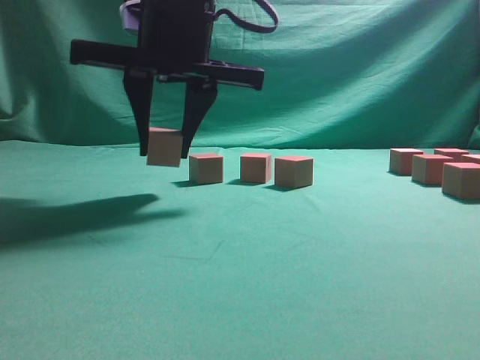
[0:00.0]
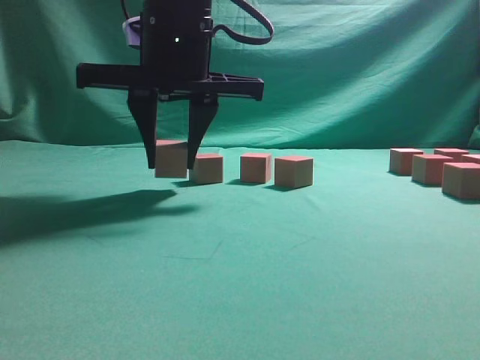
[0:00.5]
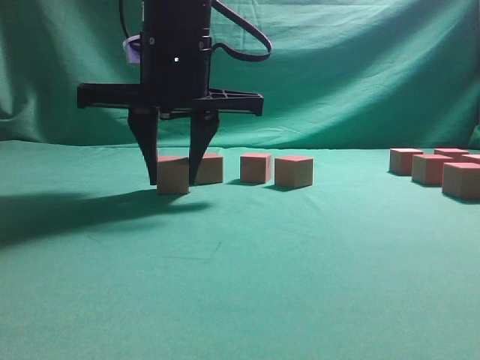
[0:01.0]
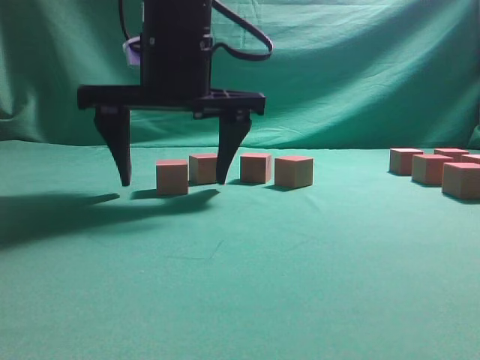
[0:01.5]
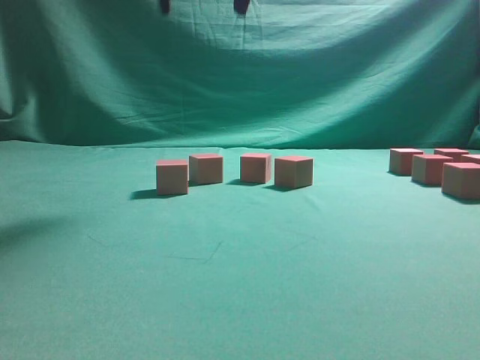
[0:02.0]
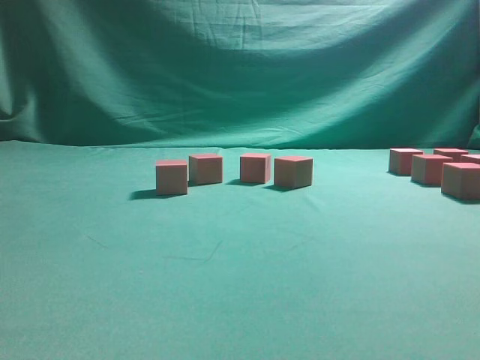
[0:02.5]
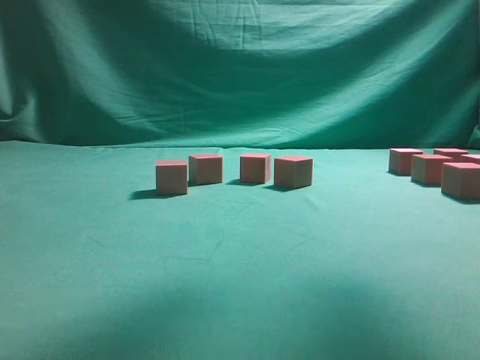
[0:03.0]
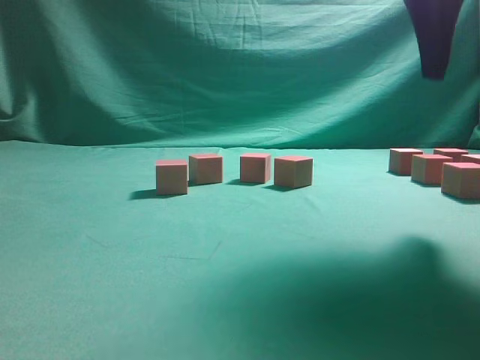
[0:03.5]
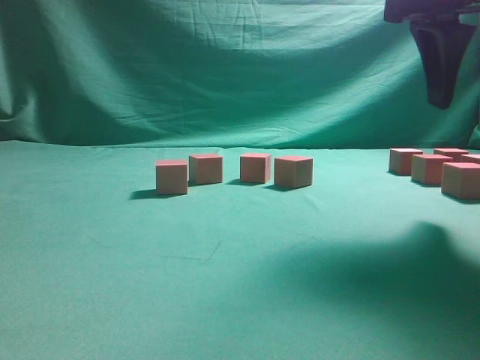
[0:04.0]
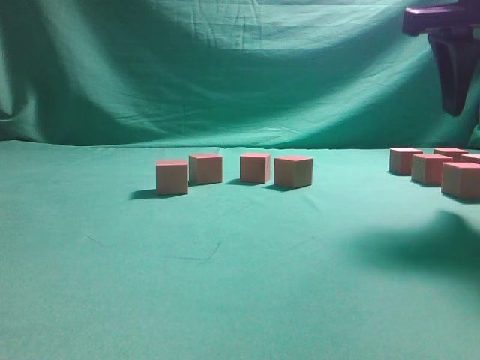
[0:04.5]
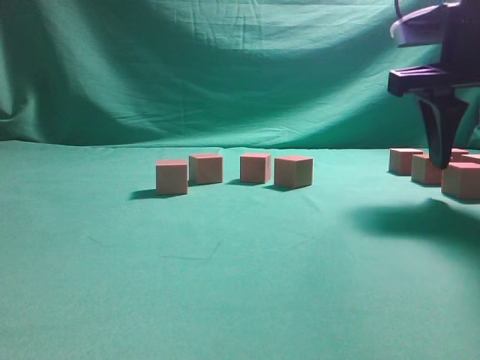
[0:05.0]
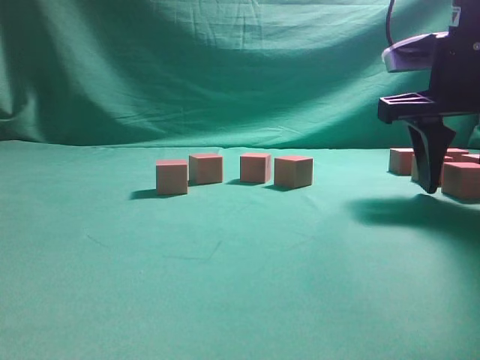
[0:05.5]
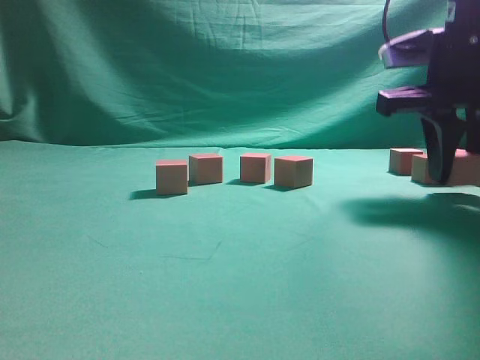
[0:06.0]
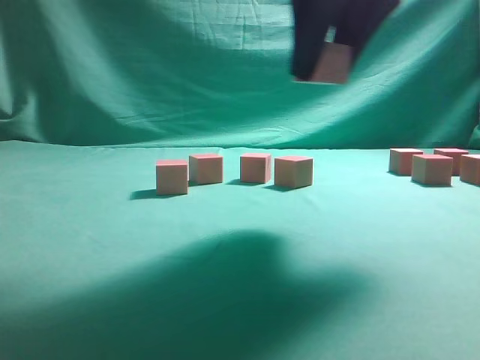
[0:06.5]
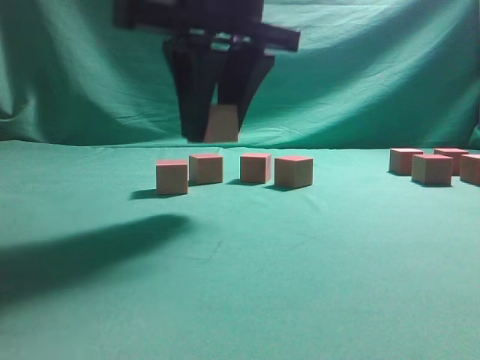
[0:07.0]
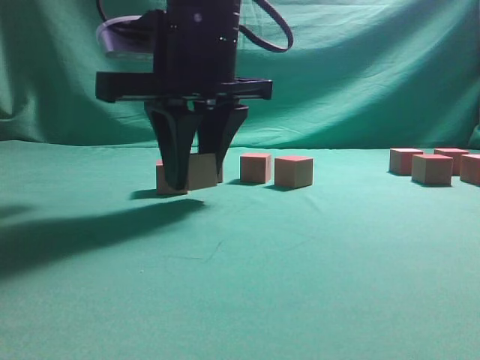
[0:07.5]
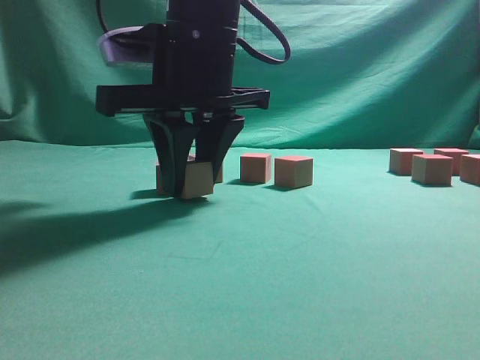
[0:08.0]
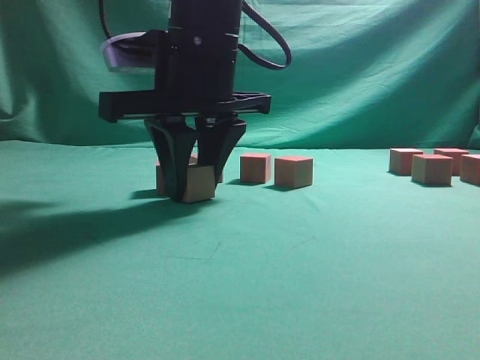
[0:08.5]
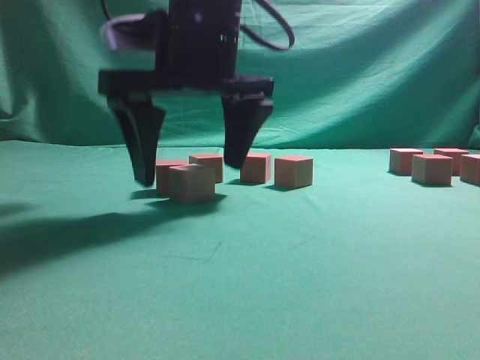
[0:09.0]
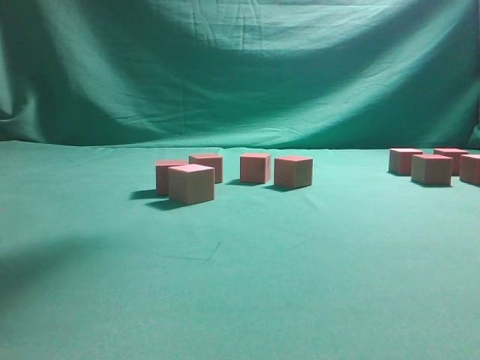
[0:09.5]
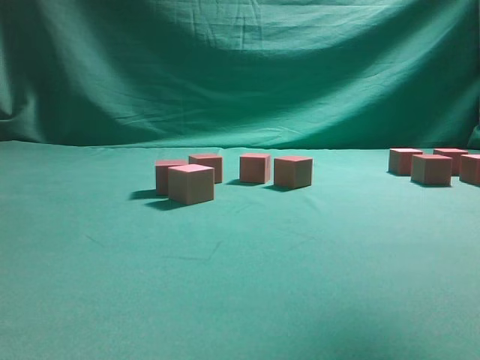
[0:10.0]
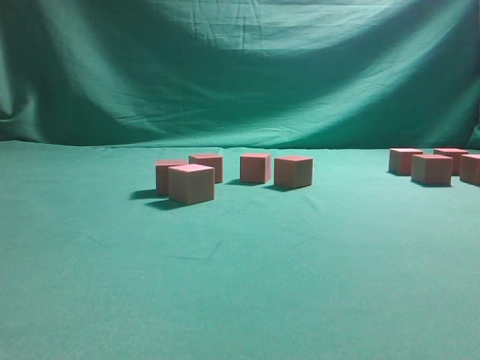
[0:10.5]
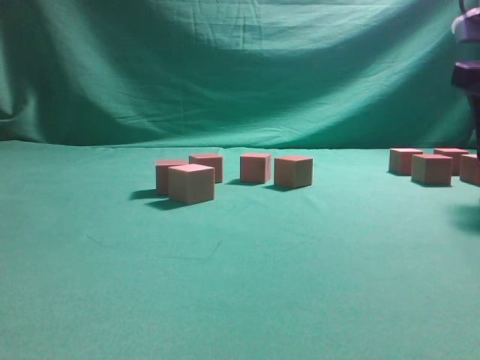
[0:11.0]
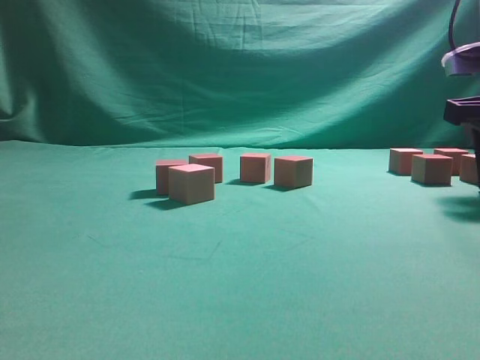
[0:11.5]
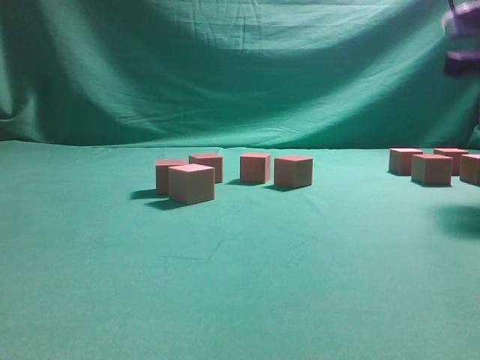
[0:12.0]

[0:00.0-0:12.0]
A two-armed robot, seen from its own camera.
Task of the whole recording: pick up the multiple cubes in two columns one by one and place them in another position on the table.
Step, 0:02.0 to 0:06.0: Pick up the block on the table.
Step, 0:06.5 to 0:09.0: Place the block at the correct position to assemble the letter S.
Step, 0:09.5 to 0:11.5: Pick up the block on the table.
0:00.0 to 0:02.0: The right gripper is displaced upward by some 10 cm, and opens its fingers.
0:02.0 to 0:04.0: The right gripper is displaced to the right and downward by some 20 cm.
0:04.0 to 0:06.0: The right gripper travels downward by approximately 5 cm.
0:06.0 to 0:08.0: The right gripper shifts about 25 cm to the left.
0:08.0 to 0:10.0: The right gripper shifts roughly 30 cm upward and to the right, and opens up.
0:10.0 to 0:12.0: The right gripper heads downward, covering approximately 20 cm, and closes up.

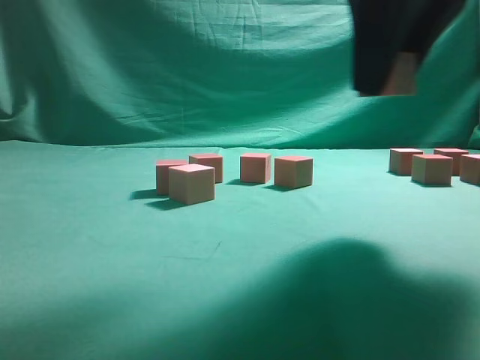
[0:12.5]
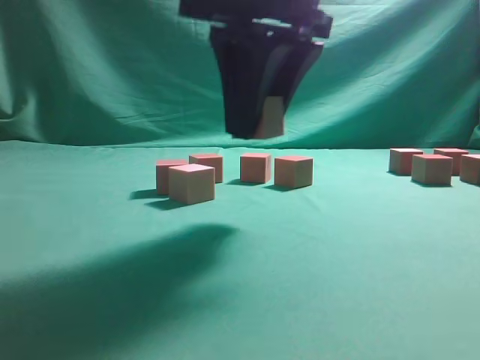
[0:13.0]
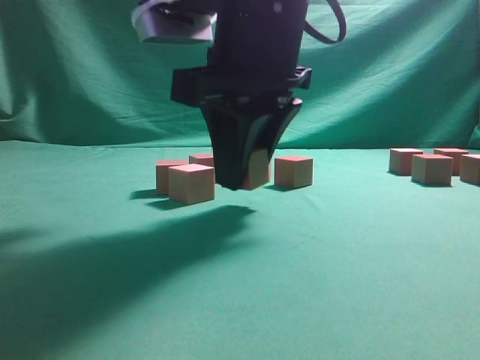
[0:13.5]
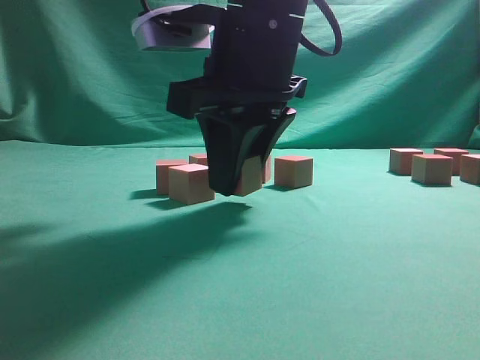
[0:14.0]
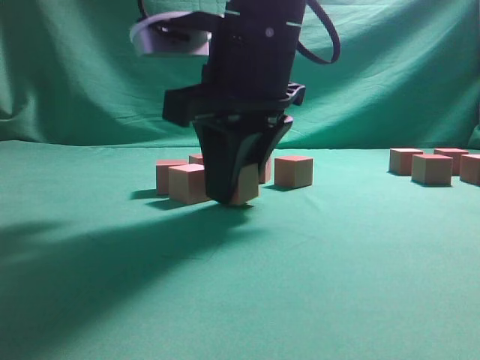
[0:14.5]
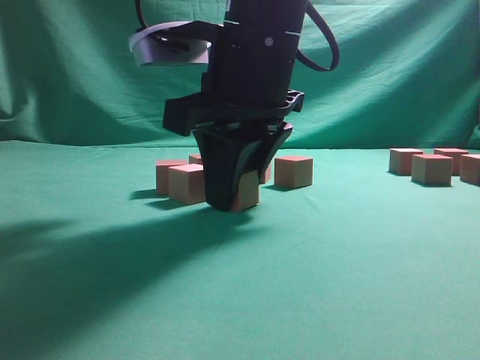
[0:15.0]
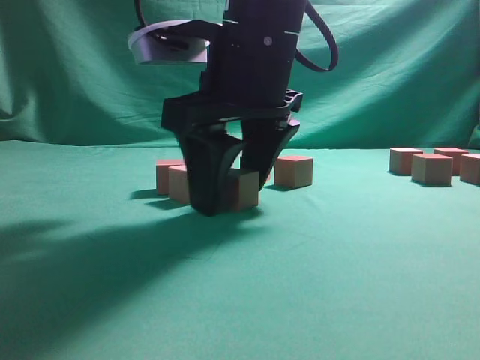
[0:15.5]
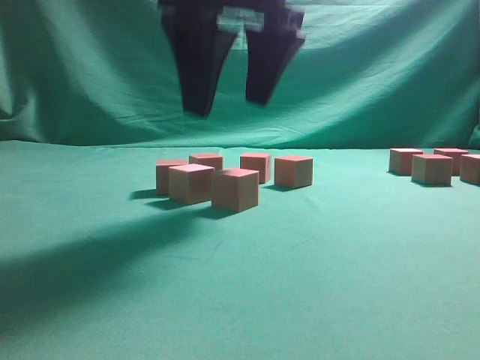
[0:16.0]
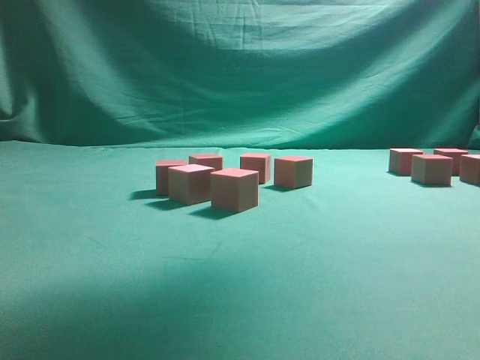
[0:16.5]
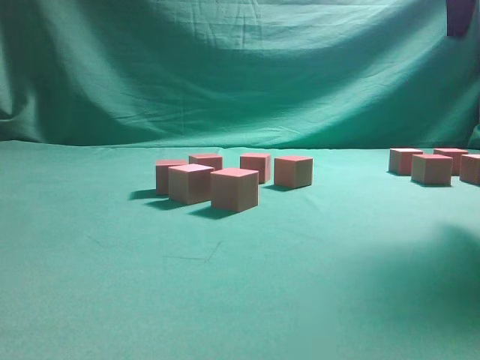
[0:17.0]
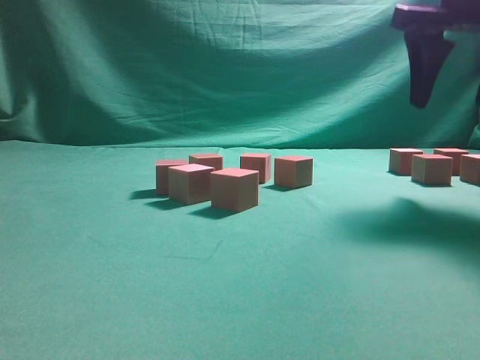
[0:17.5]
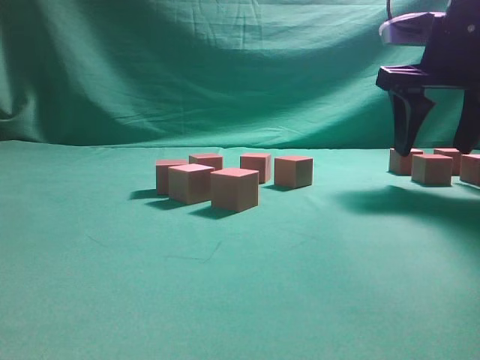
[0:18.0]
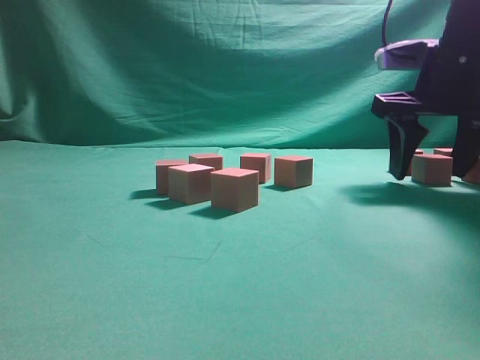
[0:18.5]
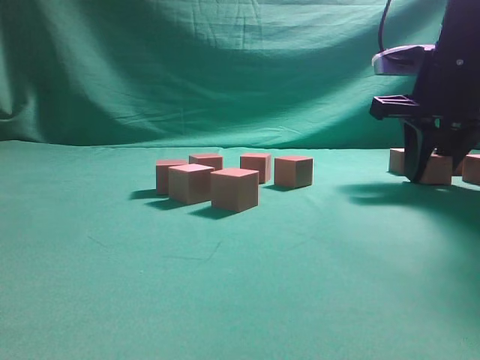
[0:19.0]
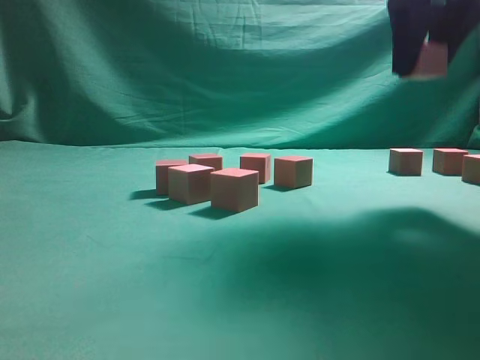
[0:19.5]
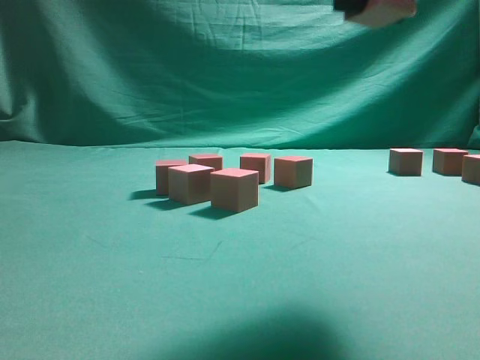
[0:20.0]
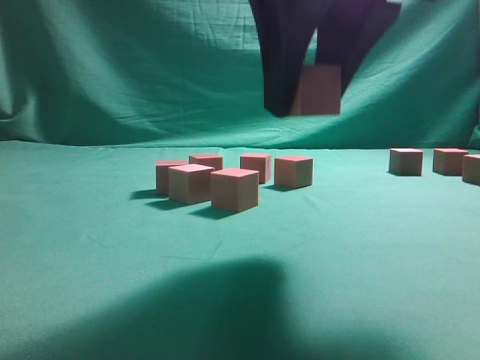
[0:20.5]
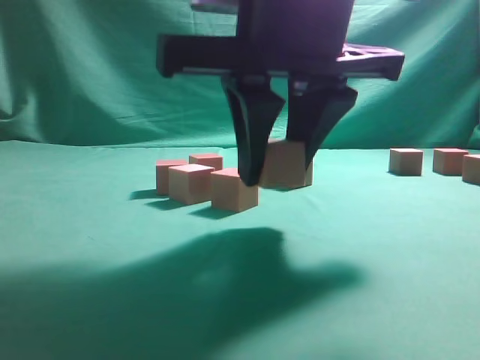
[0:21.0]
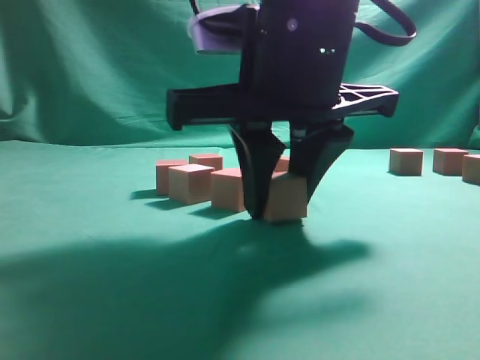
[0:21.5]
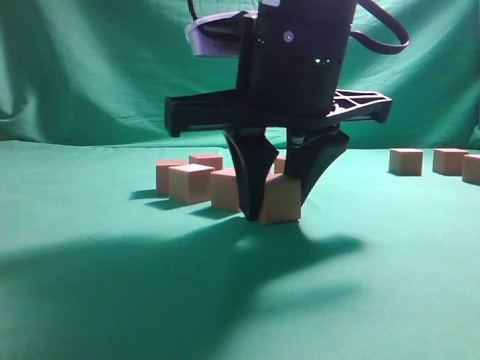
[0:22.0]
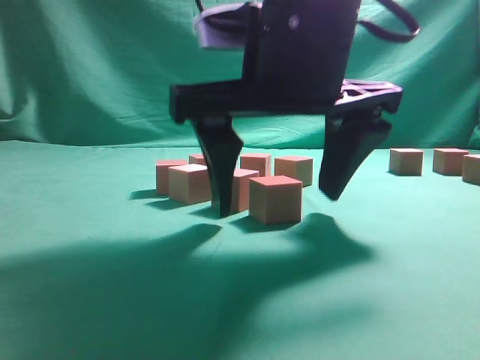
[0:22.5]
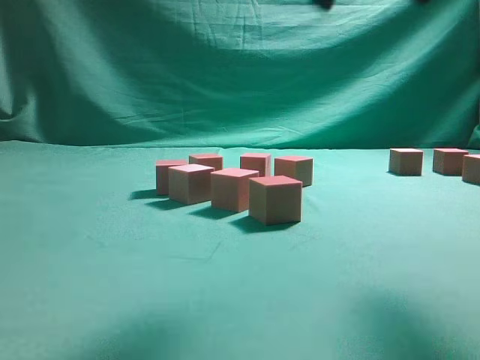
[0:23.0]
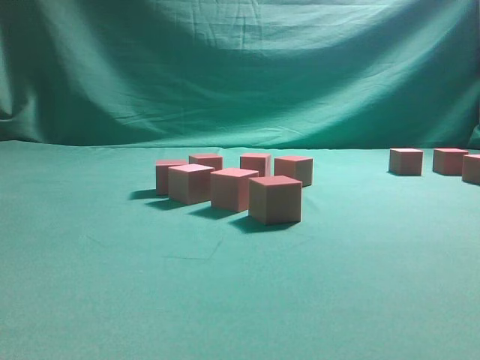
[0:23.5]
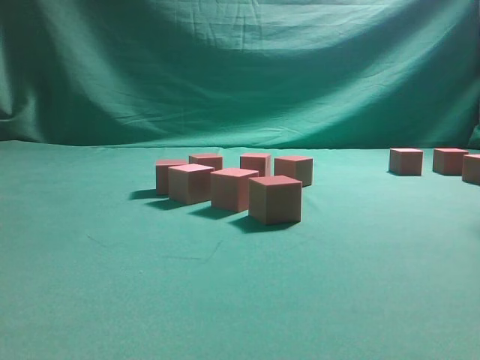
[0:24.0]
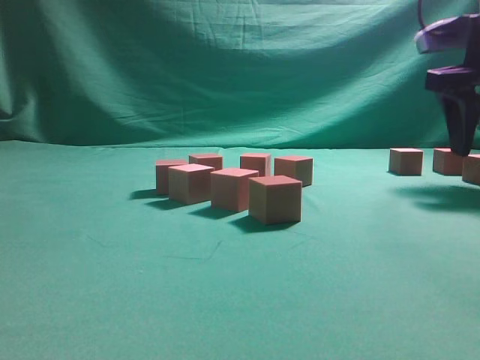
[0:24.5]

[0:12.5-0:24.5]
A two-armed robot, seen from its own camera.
Task of the whole recording: pick up the multiple cubes in two columns one by one and place them in another position on the table.
Step, 0:12.5 to 0:16.0: Place the block at the correct position to assemble the letter S.
Step, 0:16.5 to 0:19.0: Pick up the block on the table.
Step, 0:19.5 to 0:22.5: Place the block at the correct position to assemble the letter S.
0:12.5 to 0:14.5: The right gripper travels to the left and downward by approximately 15 cm.
0:14.5 to 0:16.5: The right gripper travels upward and to the right by some 20 cm, and opens.
0:16.5 to 0:18.5: The right gripper moves downward, to the right and forward, some 25 cm.
0:18.5 to 0:20.5: The right gripper is displaced backward and to the left by approximately 25 cm, and closes up.
0:20.5 to 0:22.5: The right gripper travels downward by roughly 5 cm, and opens its fingers.
0:22.5 to 0:24.5: The right gripper shifts some 25 cm to the right and forward.

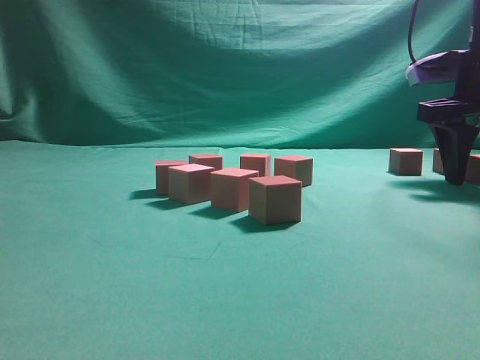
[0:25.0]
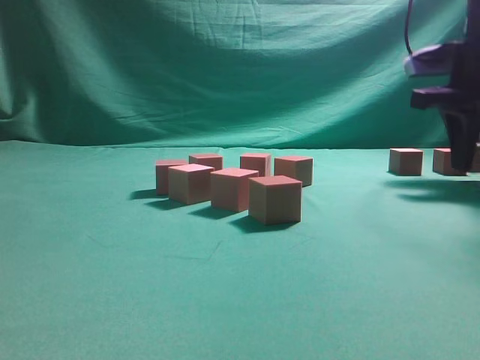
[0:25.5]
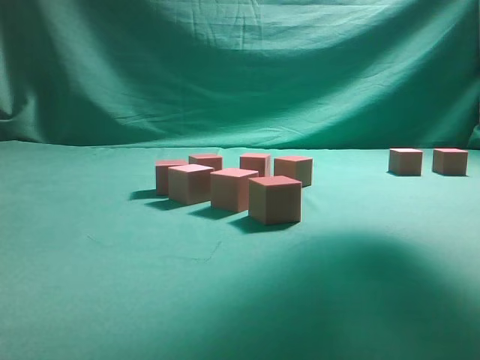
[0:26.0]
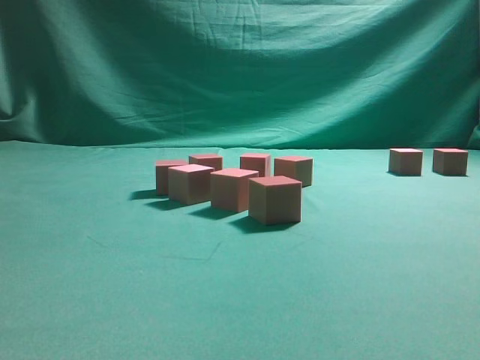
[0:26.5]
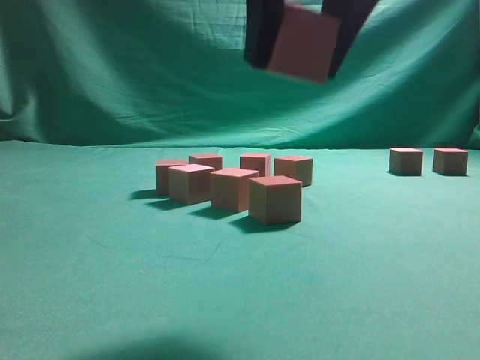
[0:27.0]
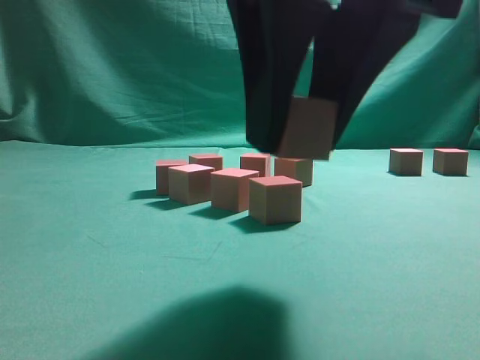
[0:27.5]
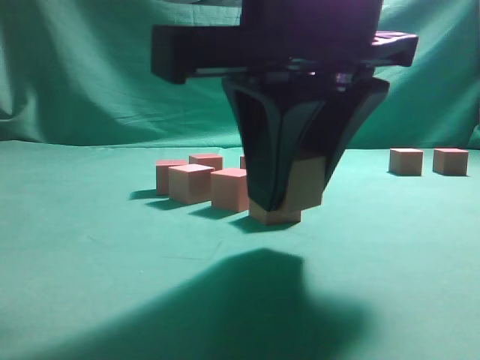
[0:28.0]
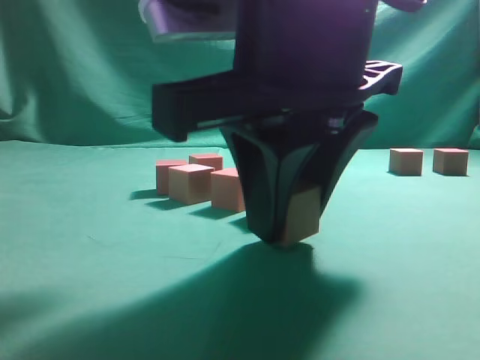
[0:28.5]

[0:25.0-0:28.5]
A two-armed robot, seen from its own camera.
Task of the whole recording: pick up the multiple cubes in two columns one by one and place them in another position on the table.
0:25.0 to 0:27.0: The right gripper moves backward and to the left, some 30 cm, and closes its fingers.
0:27.0 to 0:28.5: The right gripper moves downward, roughly 10 cm.
